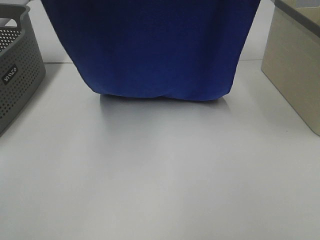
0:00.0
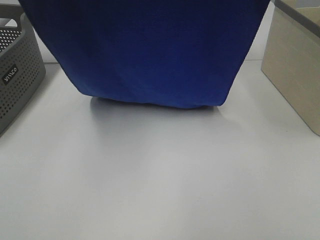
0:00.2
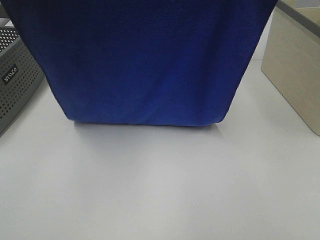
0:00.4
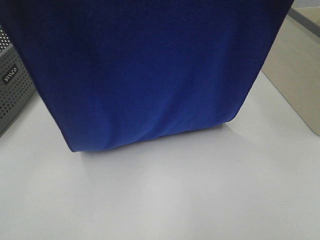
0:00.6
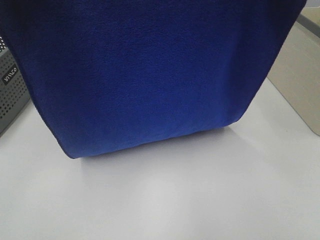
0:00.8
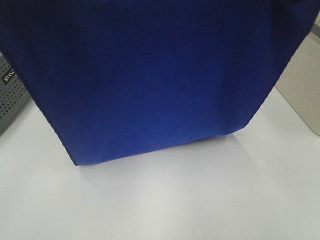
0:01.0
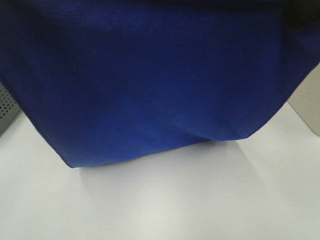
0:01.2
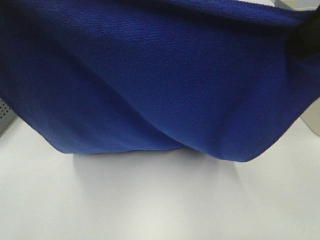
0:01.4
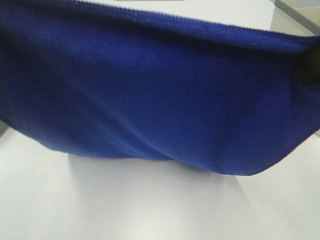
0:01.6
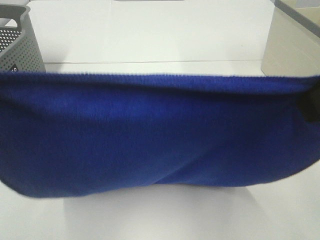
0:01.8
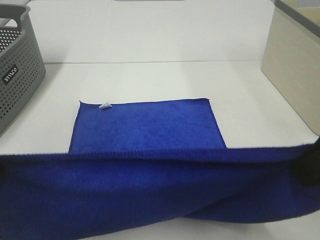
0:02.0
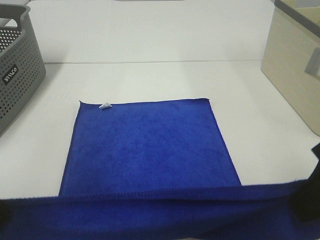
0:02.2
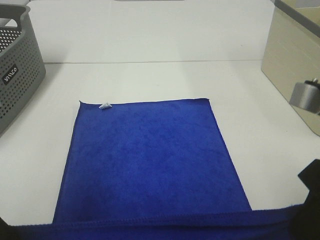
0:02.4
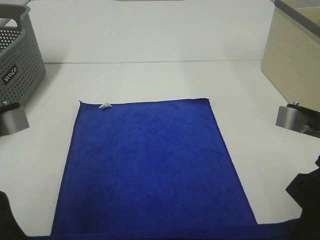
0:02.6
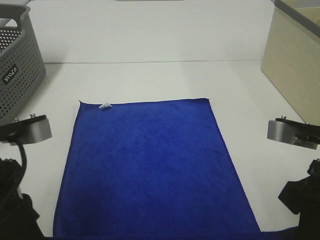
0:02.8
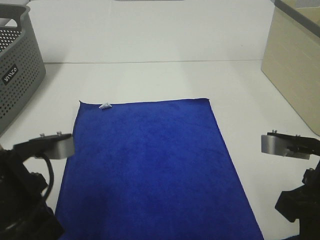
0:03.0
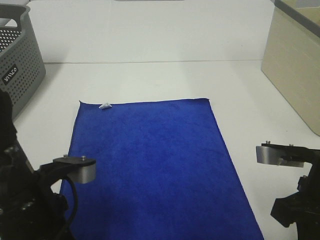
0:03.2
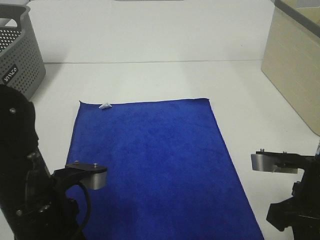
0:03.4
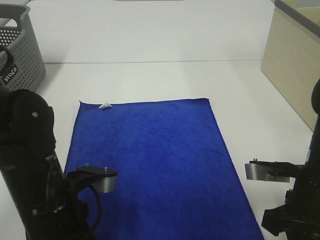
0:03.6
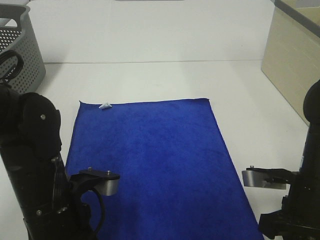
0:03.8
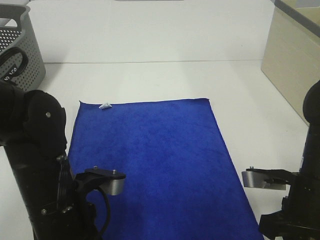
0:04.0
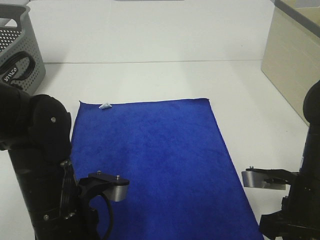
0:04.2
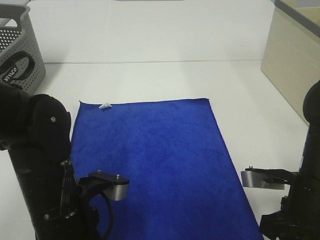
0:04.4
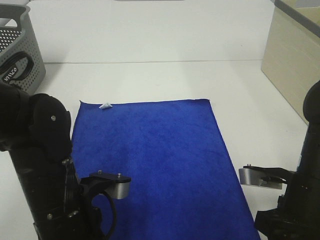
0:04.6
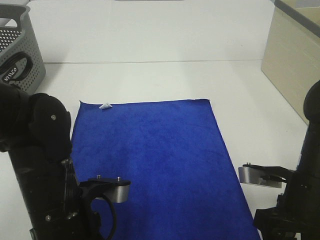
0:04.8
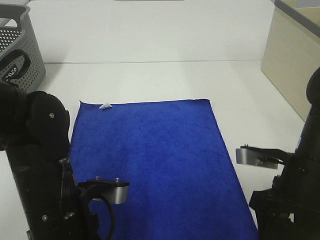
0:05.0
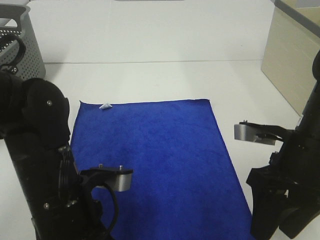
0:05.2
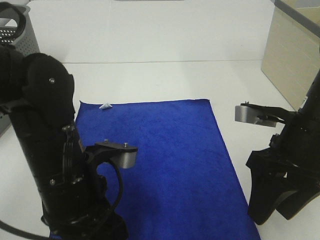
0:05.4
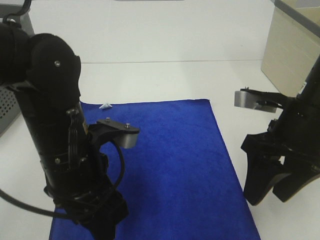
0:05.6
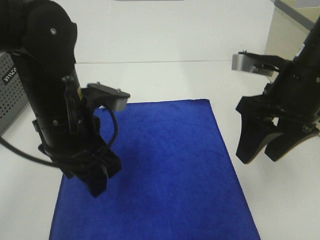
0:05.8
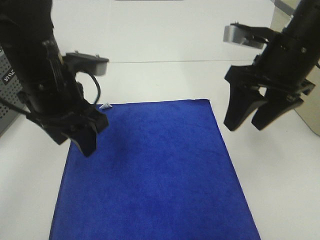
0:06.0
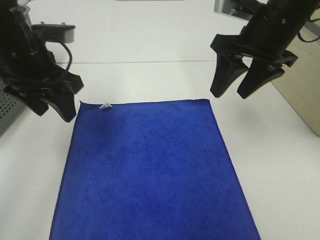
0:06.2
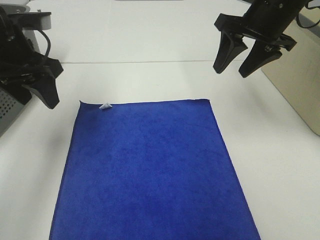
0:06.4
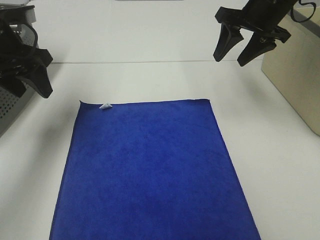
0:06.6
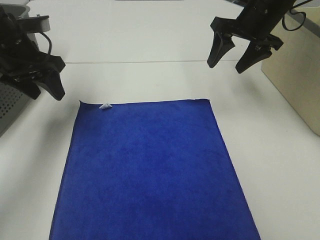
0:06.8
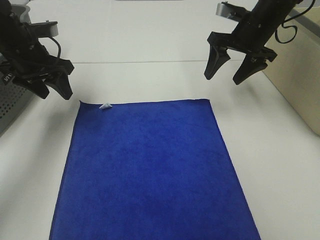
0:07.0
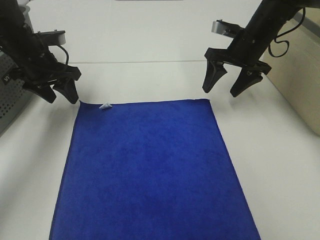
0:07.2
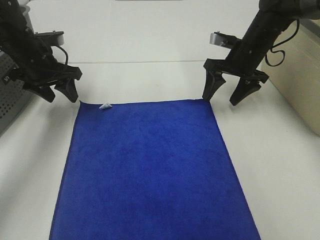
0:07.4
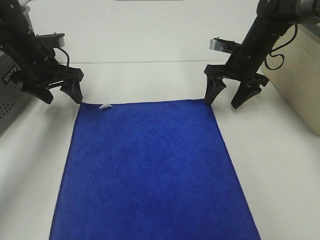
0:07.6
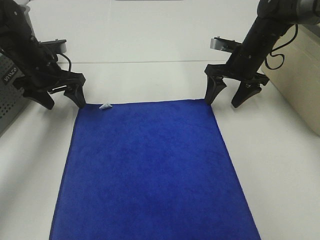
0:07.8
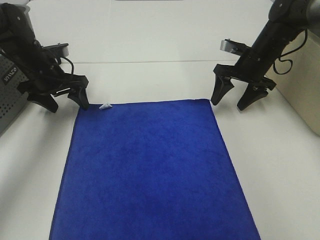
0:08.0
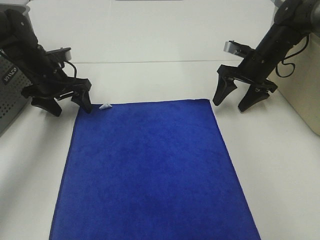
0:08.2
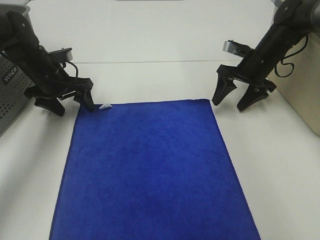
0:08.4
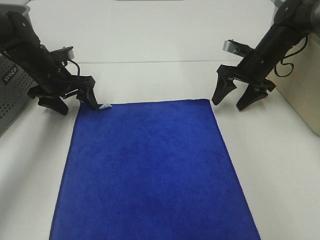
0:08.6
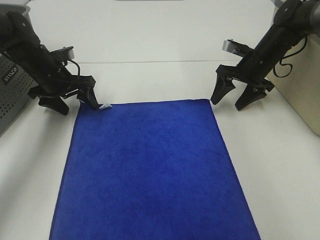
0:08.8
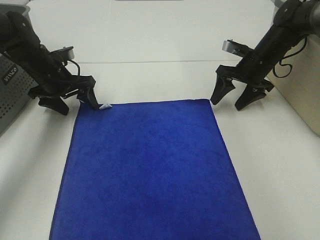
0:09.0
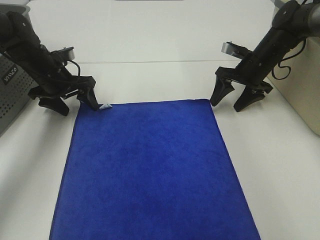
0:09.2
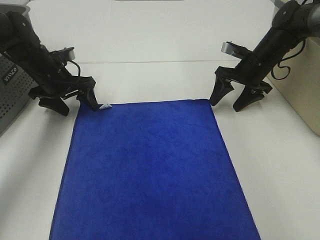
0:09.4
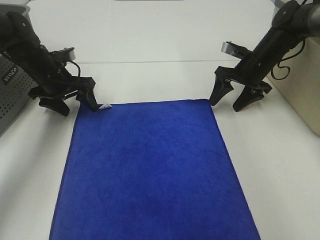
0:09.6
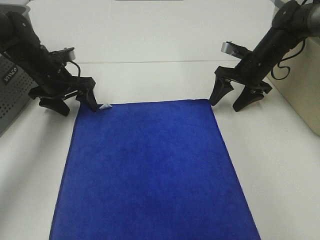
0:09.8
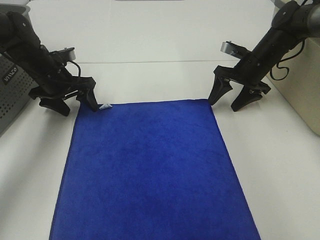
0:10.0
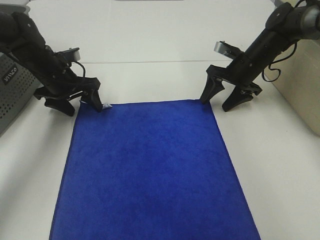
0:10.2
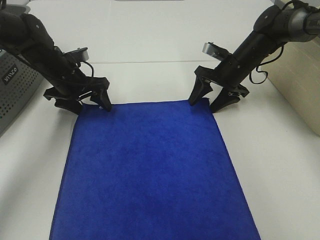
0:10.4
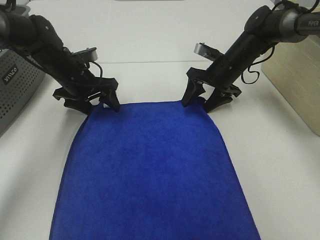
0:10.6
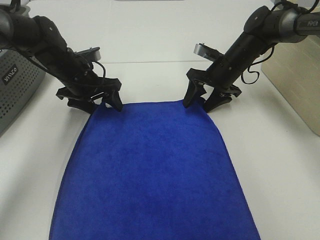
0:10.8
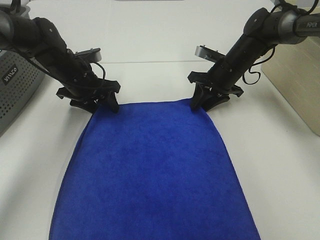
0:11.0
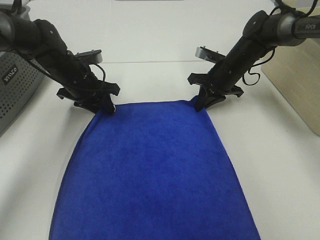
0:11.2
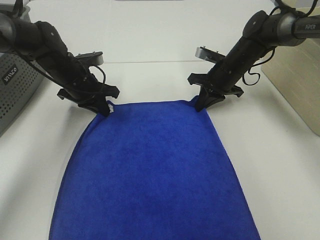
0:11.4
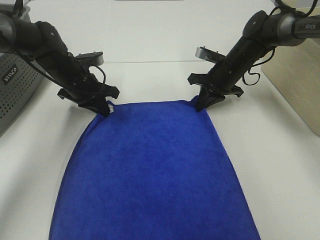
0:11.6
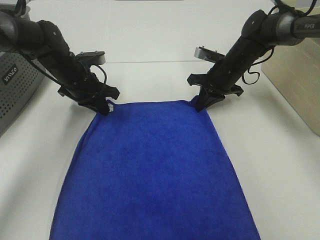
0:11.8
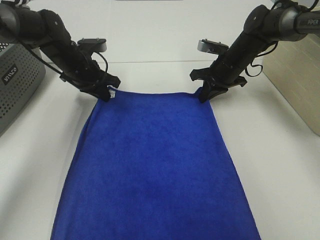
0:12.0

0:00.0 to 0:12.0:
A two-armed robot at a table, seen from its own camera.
Task of the whole recording: Remove the towel and place it.
Step, 0:00.0 to 0:08.6: Left hand:adjust the blue towel.
Step, 0:00.0 to 0:08.6: Right hand:adjust the blue towel.
0:00.0 to 0:01.6: The left gripper heads backward, covering about 15 cm; the right gripper travels backward and downward by approximately 20 cm.
0:01.6 to 0:03.0: The grippers both shift downward by approximately 20 cm.
0:03.0 to 0:04.4: The right gripper moves downward, roughly 5 cm. The left gripper is displaced downward and to the right by about 10 cm.
0:04.4 to 0:06.0: The right gripper heads upward and forward, covering roughly 20 cm, and opens. Meanwhile the left gripper goes some 15 cm forward and upward, and opens.
0:06.0 to 0:07.6: The right gripper goes approximately 20 cm forward and downward. The left gripper travels forward, to the left and downward by roughly 20 cm.
0:07.6 to 0:09.0: There are only small adjustments of the grippers.
0:09.0 to 0:10.4: The right gripper ends up roughly 5 cm from where it was.
0:10.4 to 0:12.0: The right gripper closes its fingers. Meanwhile the left gripper closes its fingers.

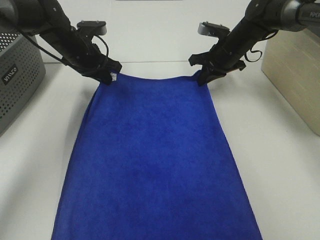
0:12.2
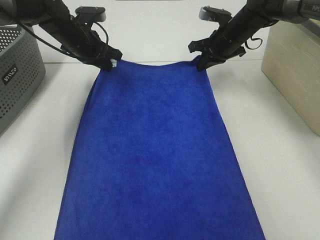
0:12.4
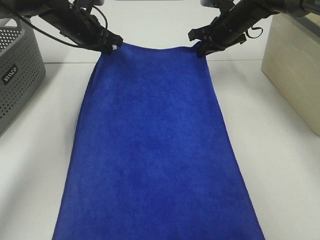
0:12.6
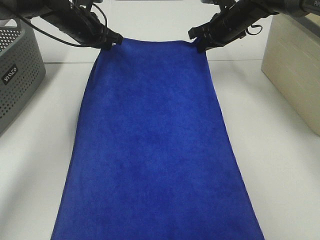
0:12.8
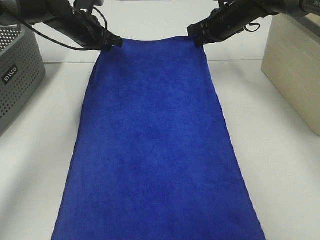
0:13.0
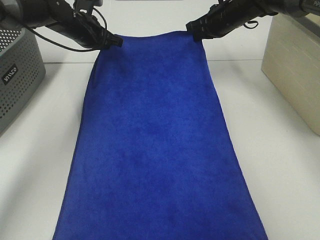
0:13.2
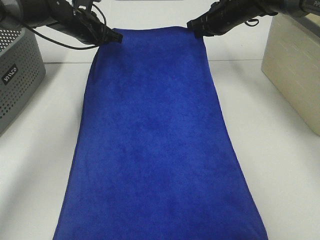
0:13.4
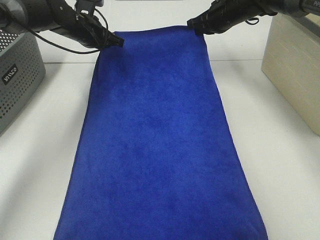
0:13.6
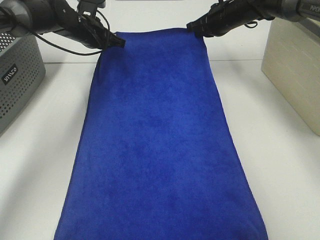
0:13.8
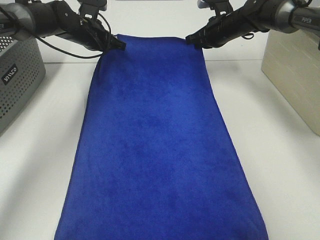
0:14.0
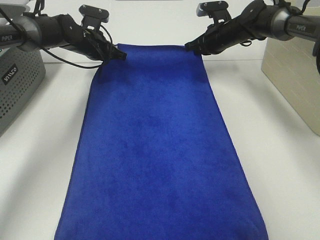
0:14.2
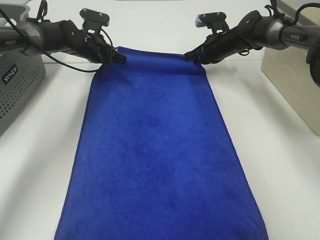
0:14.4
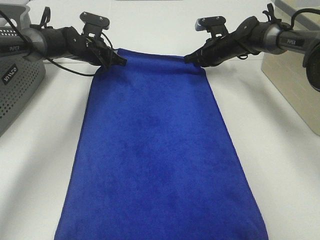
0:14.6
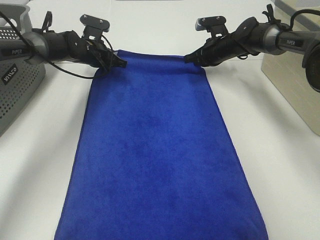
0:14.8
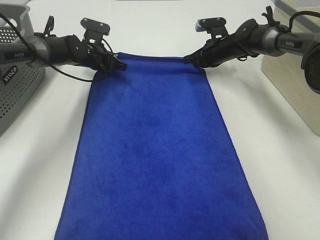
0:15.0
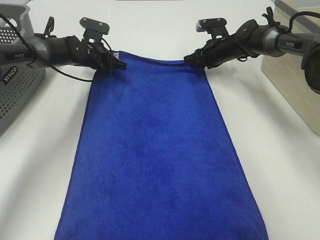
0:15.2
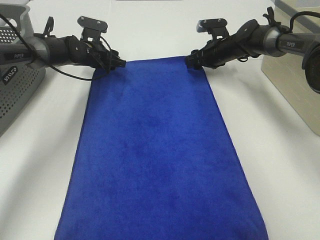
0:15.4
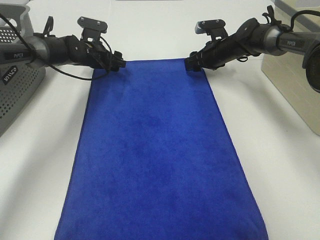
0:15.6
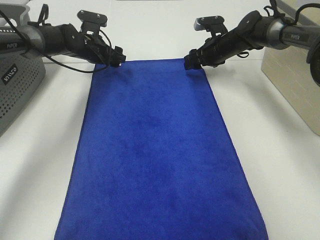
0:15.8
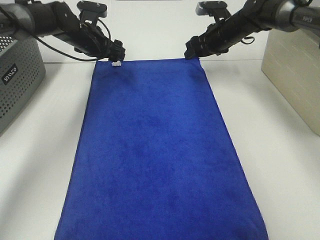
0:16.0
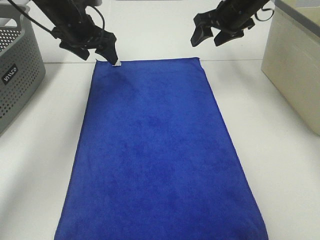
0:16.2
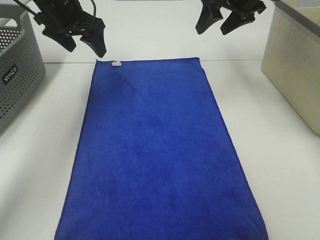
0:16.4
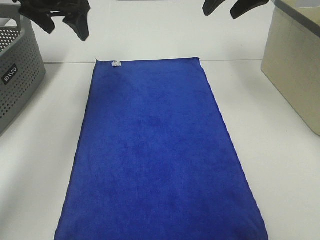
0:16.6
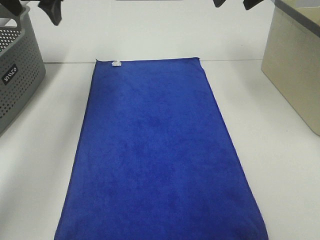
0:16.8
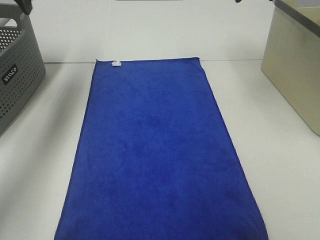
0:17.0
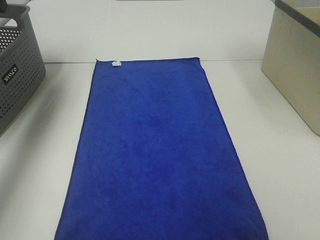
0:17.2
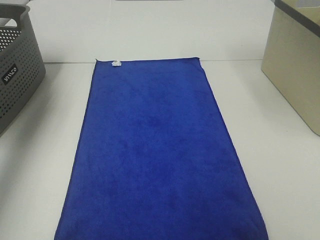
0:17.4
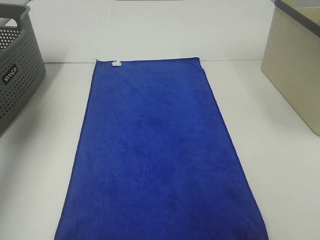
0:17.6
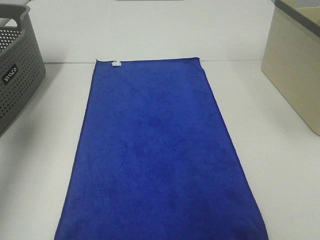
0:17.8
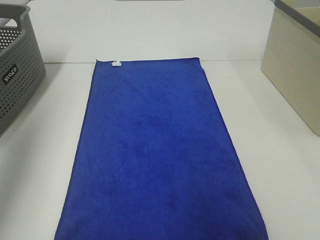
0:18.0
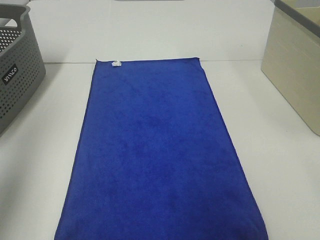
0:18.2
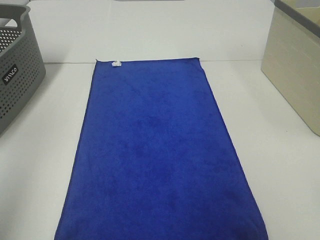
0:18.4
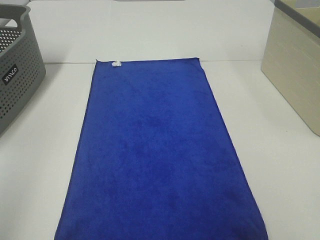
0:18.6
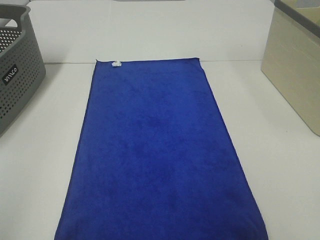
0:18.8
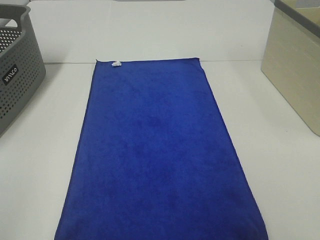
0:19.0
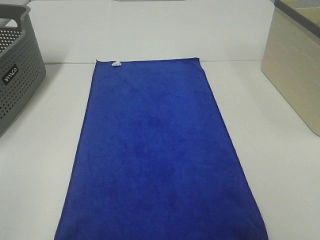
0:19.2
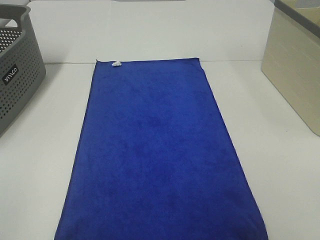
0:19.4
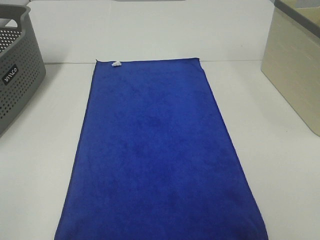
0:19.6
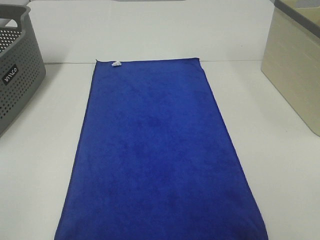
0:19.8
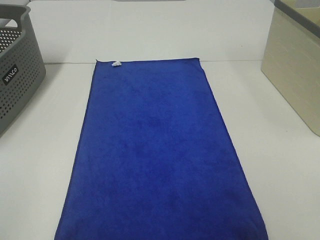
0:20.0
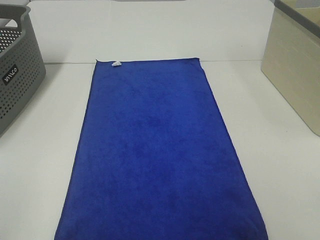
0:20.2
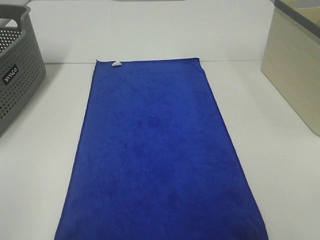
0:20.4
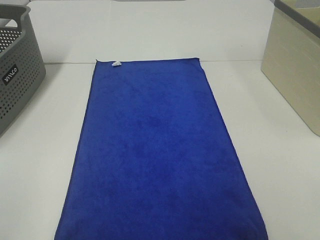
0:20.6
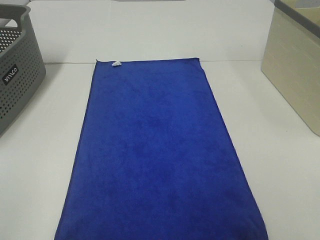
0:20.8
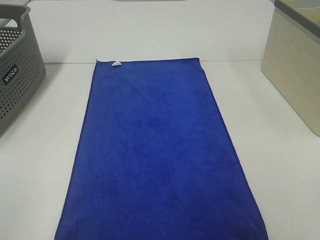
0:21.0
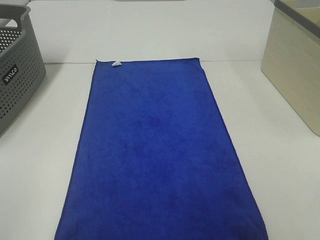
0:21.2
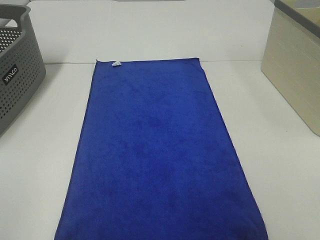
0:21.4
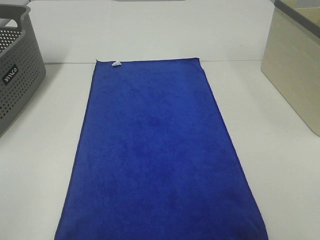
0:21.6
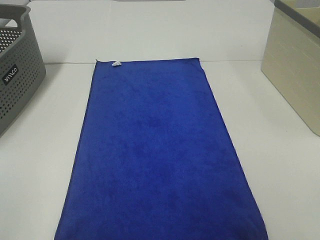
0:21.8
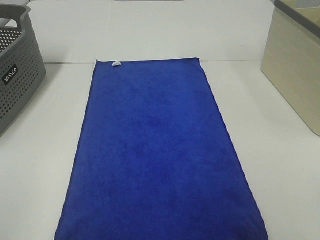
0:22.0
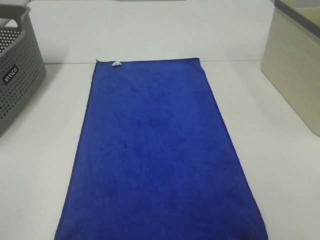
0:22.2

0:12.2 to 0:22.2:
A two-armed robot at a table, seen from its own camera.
Task of the whole recording: Remove the towel and place it.
0:12.2 to 0:13.6: The right gripper is displaced upward by roughly 5 cm. Meanwhile the left gripper travels forward by approximately 5 cm.
0:13.6 to 0:15.0: The two grippers go approximately 10 cm downward.
0:15.0 to 0:16.4: The grippers both shift upward and backward by roughly 20 cm. The left gripper opens up, while the right gripper opens.
0:16.4 to 0:18.0: The left gripper is displaced backward, to the left and upward by roughly 30 cm, while the right gripper heads backward and upward, covering some 30 cm.
0:18.0 to 0:19.4: The left gripper travels backward by roughly 25 cm.
0:20.8 to 0:22.2: Both grippers stay put.
